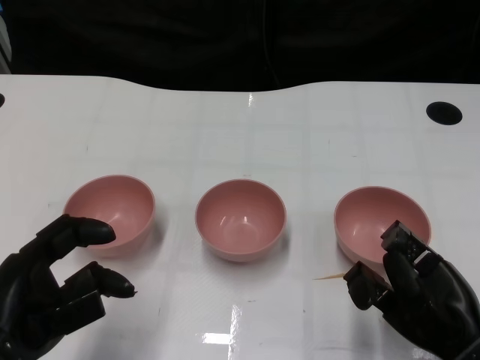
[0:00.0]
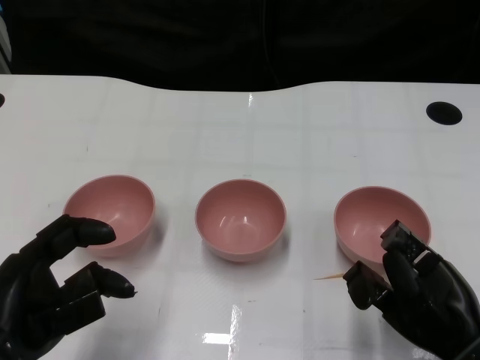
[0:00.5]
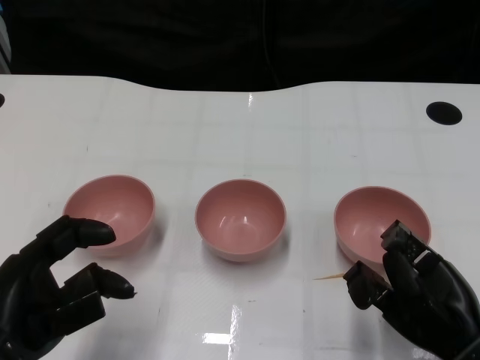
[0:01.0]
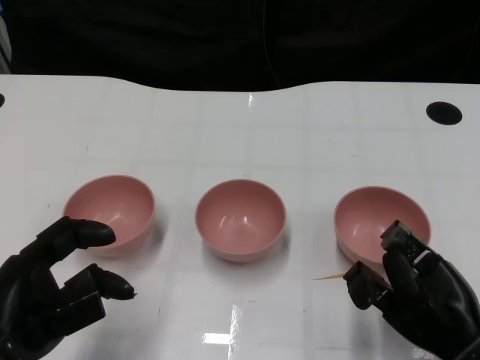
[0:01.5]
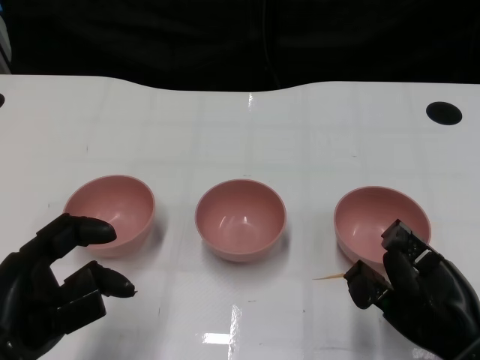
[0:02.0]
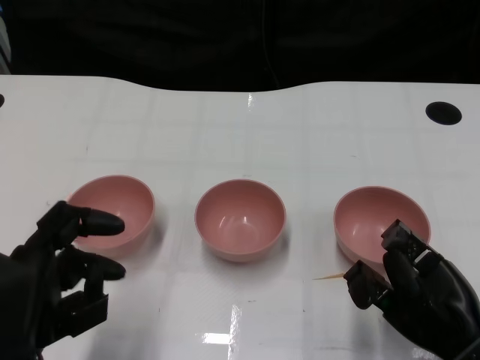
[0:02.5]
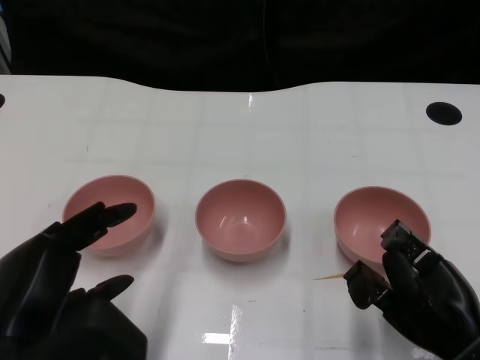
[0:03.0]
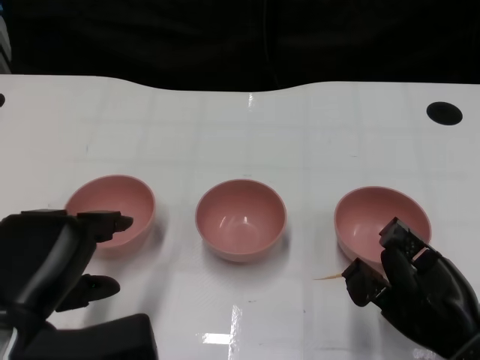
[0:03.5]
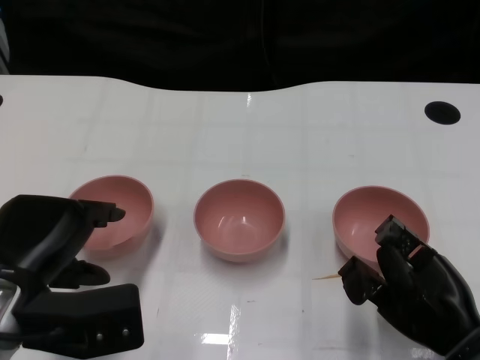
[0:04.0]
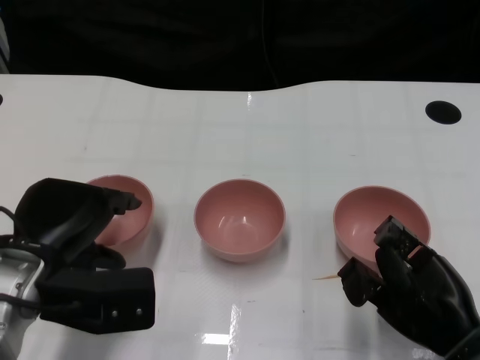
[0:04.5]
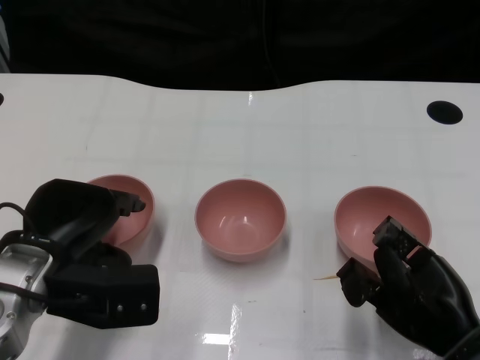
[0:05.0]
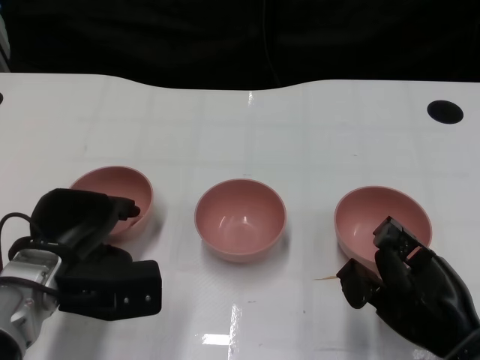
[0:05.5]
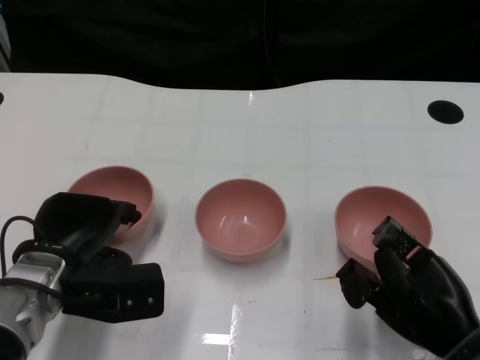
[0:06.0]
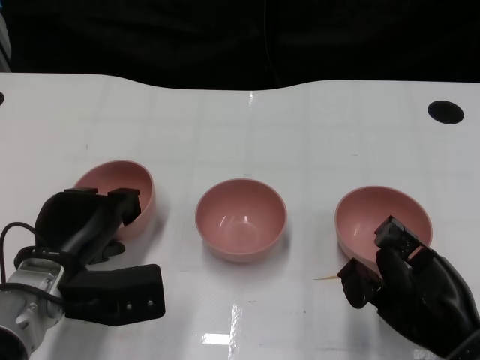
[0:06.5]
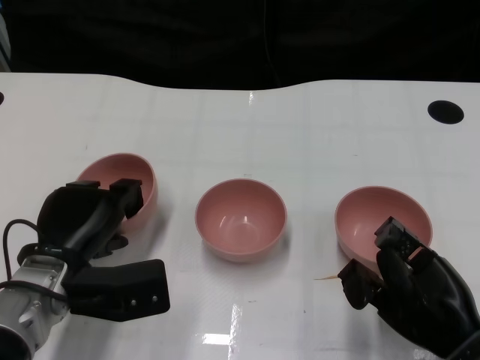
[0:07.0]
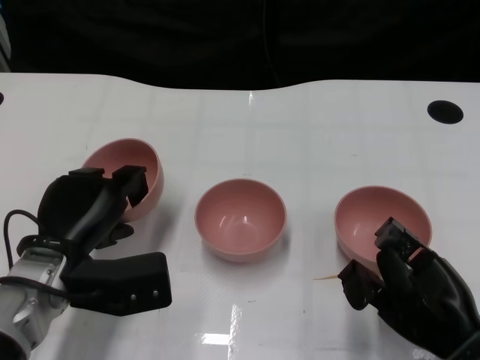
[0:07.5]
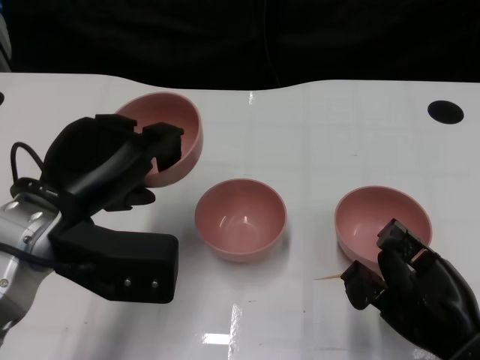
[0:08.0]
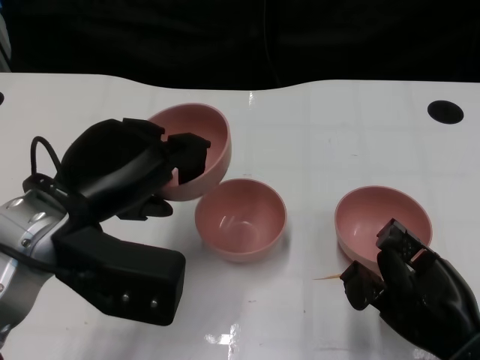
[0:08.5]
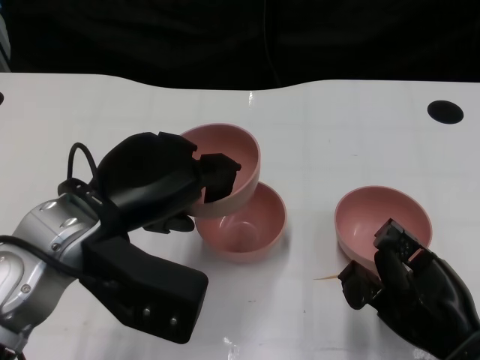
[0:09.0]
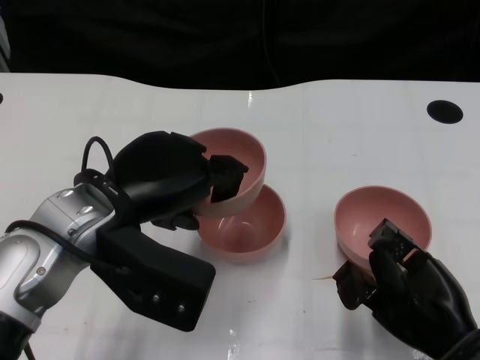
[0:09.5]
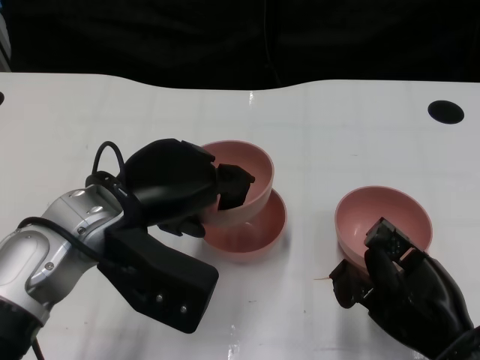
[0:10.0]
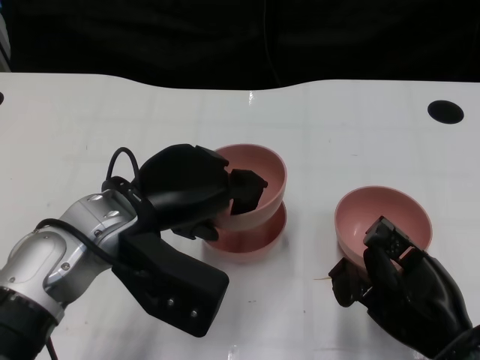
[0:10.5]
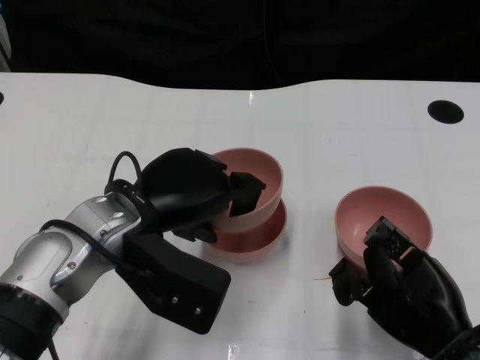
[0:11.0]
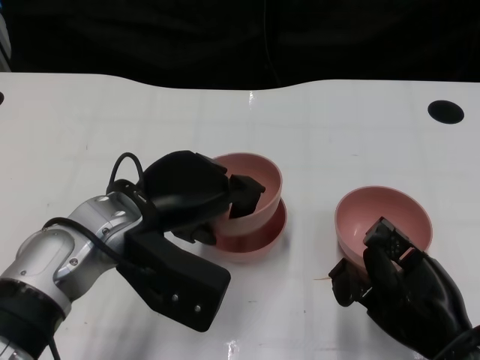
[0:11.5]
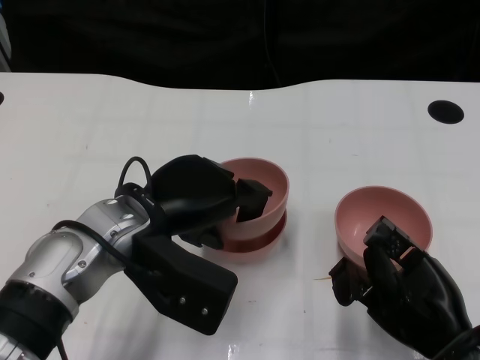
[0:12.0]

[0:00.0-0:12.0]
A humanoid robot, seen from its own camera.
Task of the whole recording: Pick up the bowl on one side of the table and place it on top of the middle bowl, then pick up the bowl on the other side of the table and place it on top of the middle bowls.
Step, 0:02.5 to 0:07.0: Grasp the bowl on the left with the left gripper.
0:02.0 to 0:04.0: The left hand heads forward, covering roughly 5 cm.
0:04.0 to 0:06.0: The left hand shifts roughly 10 cm forward and downward.
0:06.0 to 0:08.0: The left hand is displaced upward by approximately 10 cm.
0:10.0 to 0:12.0: The hands stay close to where they were, moving slightly.

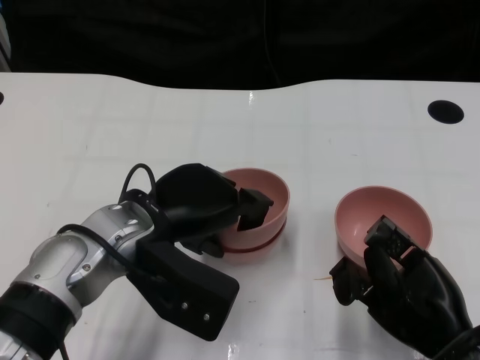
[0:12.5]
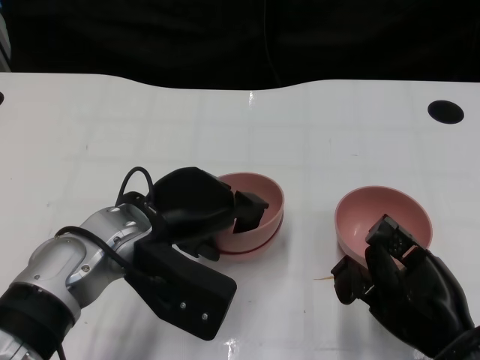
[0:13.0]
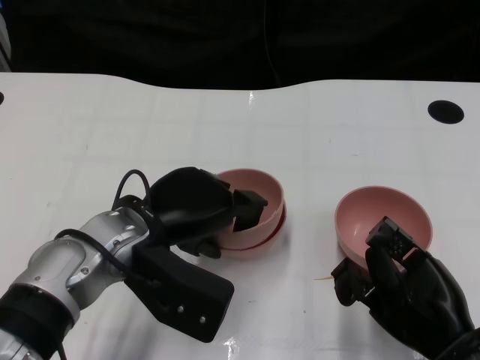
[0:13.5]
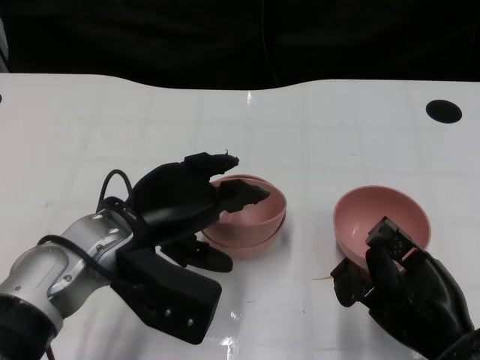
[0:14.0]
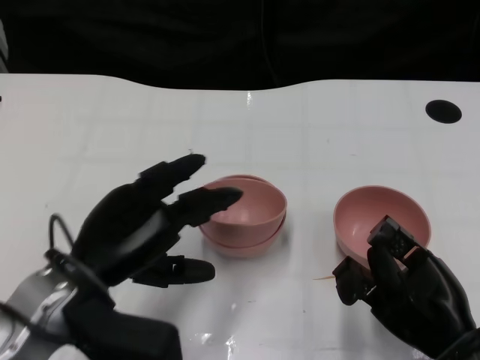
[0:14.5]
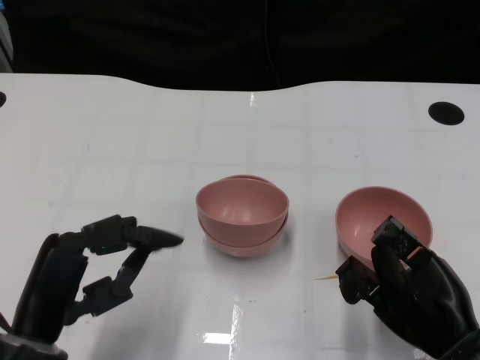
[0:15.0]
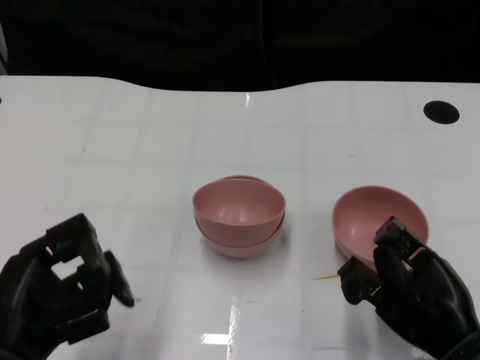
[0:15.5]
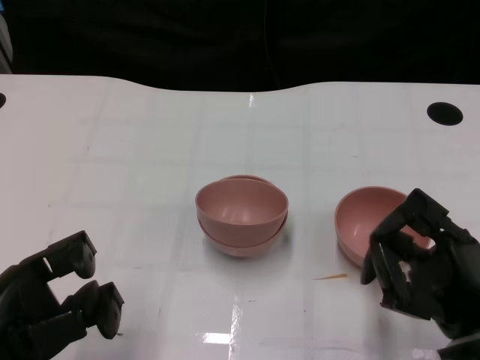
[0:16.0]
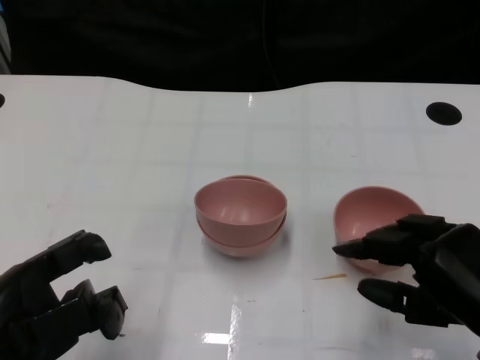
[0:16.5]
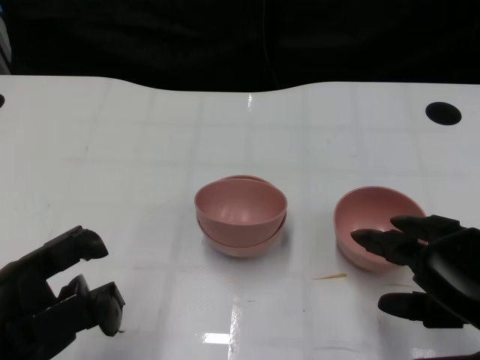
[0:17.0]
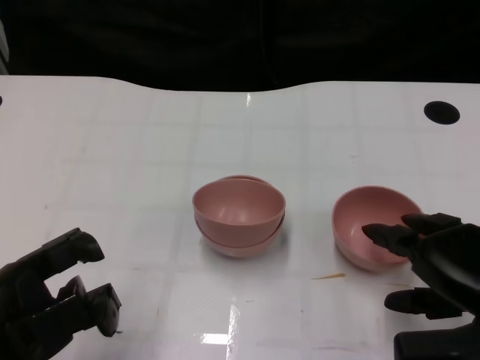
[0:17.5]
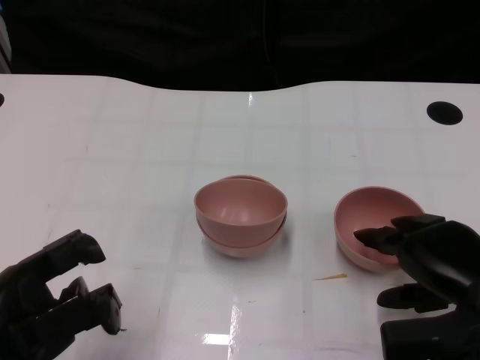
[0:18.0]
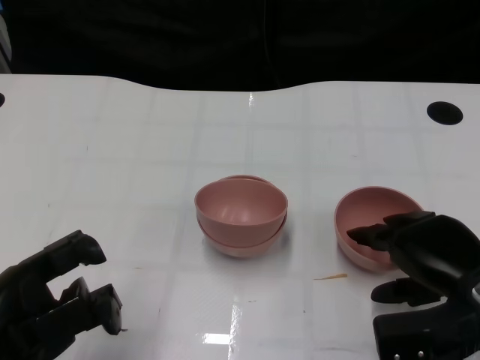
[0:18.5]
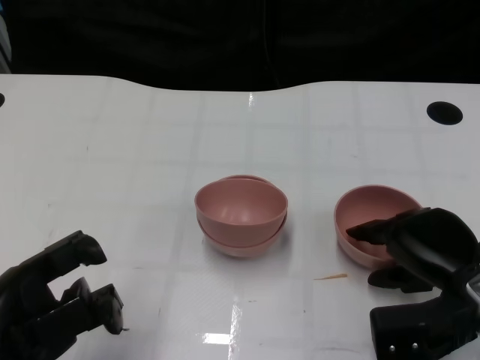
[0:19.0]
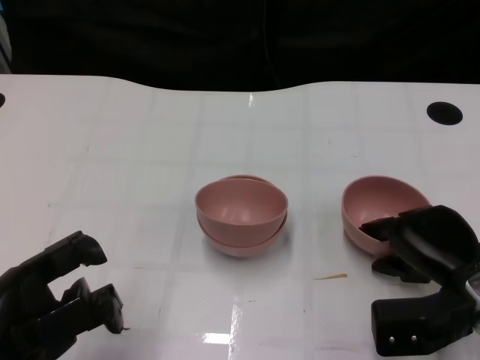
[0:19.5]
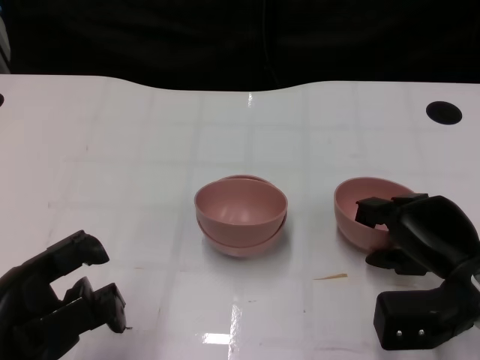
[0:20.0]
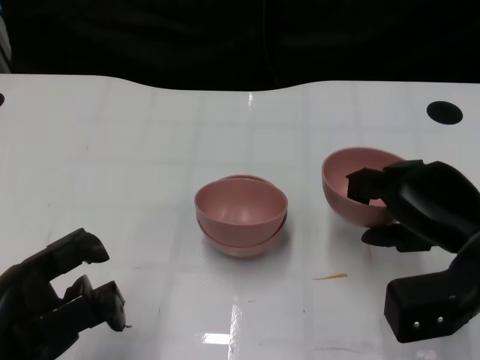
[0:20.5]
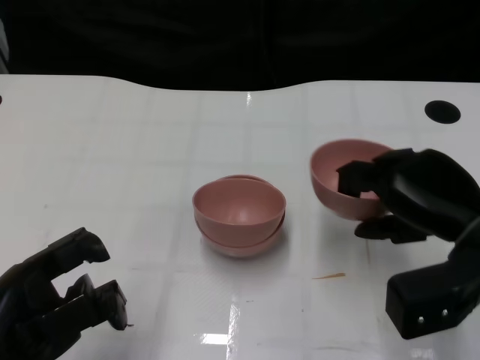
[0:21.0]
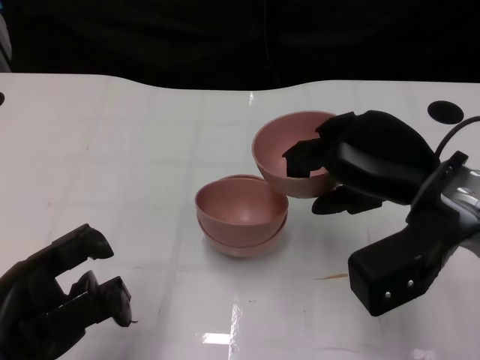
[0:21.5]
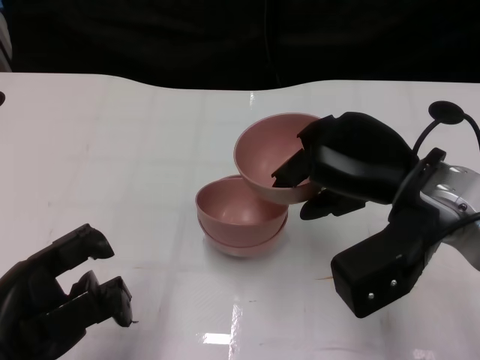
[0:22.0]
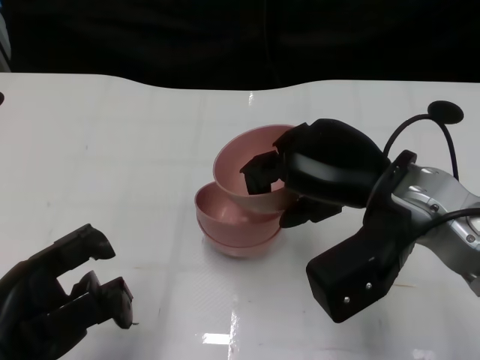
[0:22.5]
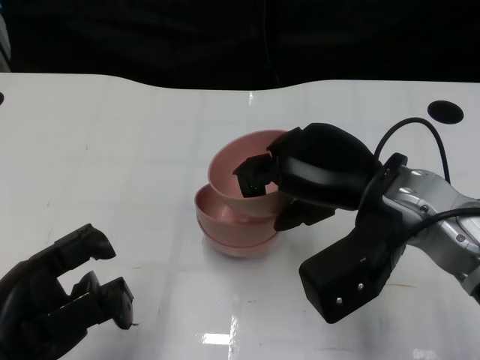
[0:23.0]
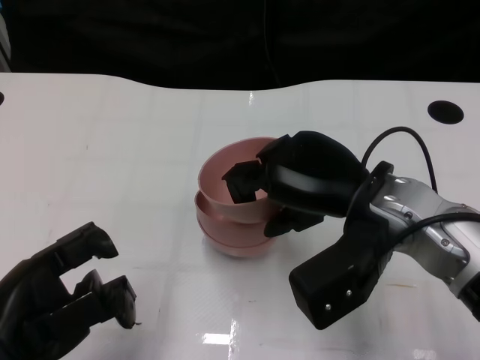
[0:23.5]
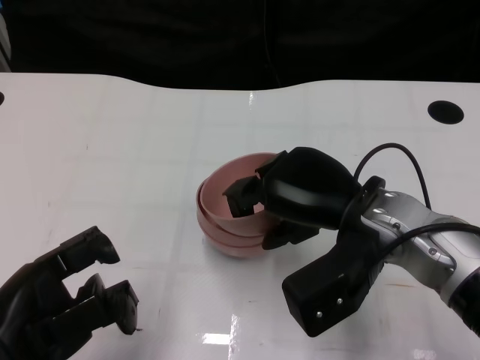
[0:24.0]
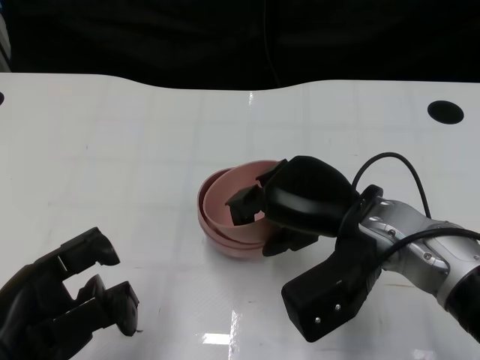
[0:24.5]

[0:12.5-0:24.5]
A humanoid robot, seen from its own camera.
Task of the whole recording: Pick up the bowl on one side of the table and place it on top of the middle bowl, then pick up the bowl on the other side of the table and place it on top of the middle bowls.
Step, 0:14.5 to 0:20.0: Grasp the bowl on the right with the right gripper.
0:12.5 to 0:14.5: The left hand shifts some 5 cm to the left.
0:14.5 to 0:16.5: The right hand moves upward, approximately 5 cm; the left hand travels backward and to the left by roughly 10 cm.
0:16.5 to 0:18.5: The right hand heads forward, covering some 5 cm.
0:18.5 to 0:20.5: The hands make only small movements.
0:20.5 to 0:22.5: The right hand heads to the left and upward, covering roughly 10 cm.
0:22.5 to 0:24.5: The right hand ends up approximately 5 cm from where it was.

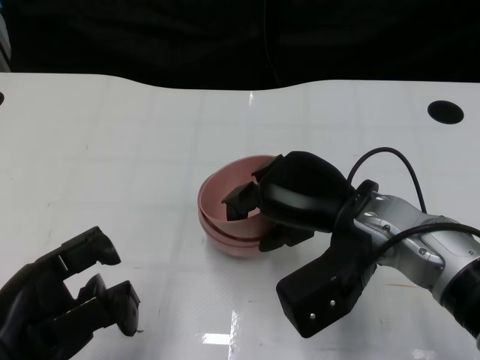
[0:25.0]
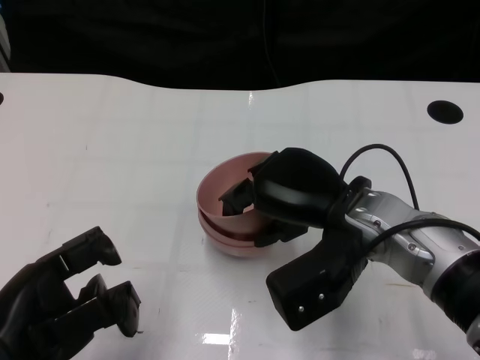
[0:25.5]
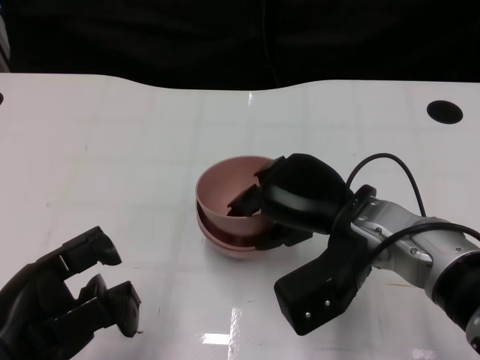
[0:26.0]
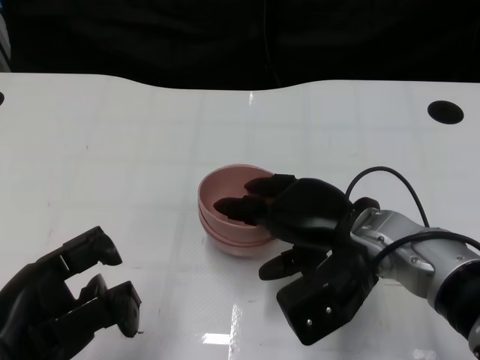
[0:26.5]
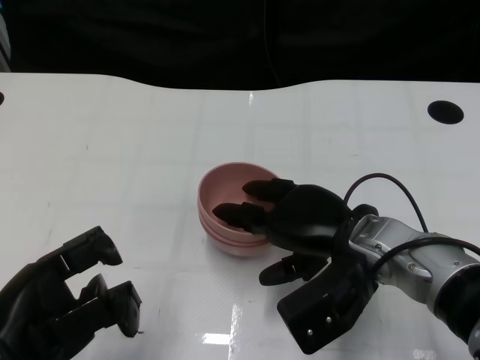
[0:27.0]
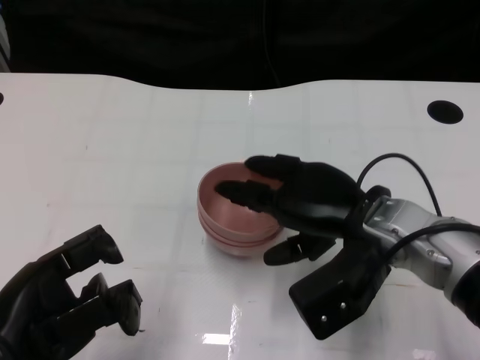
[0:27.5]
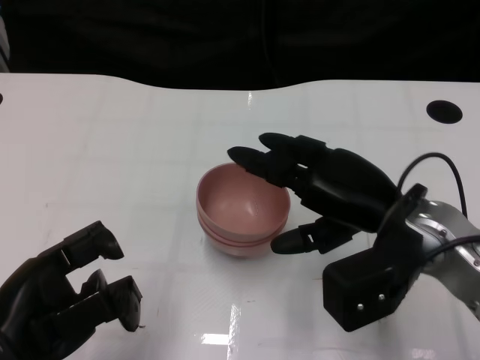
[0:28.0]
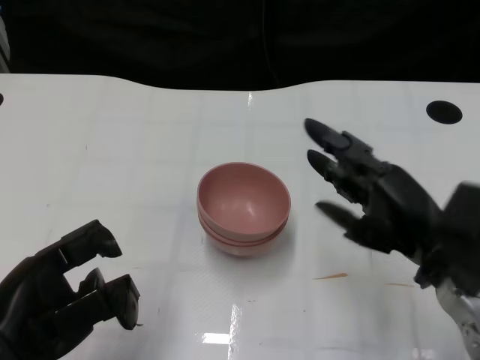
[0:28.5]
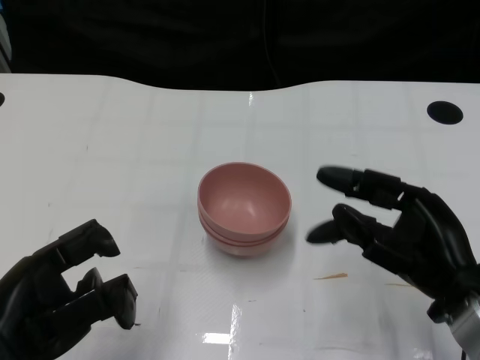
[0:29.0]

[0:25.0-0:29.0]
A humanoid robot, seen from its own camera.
Task of the whole recording: Pick up the bowl on one side of the table and place it on top of the middle bowl, then pick up the bowl on the other side of the table and place it on top of the middle bowls.
Step, 0:25.0 to 0:27.0: Place the bowl on the right onto the bowl in the middle with right gripper.
0:25.0 to 0:27.0: The hands stay close to where they were, moving slightly.
0:27.0 to 0:29.0: The right hand is displaced to the right and backward by about 10 cm.
